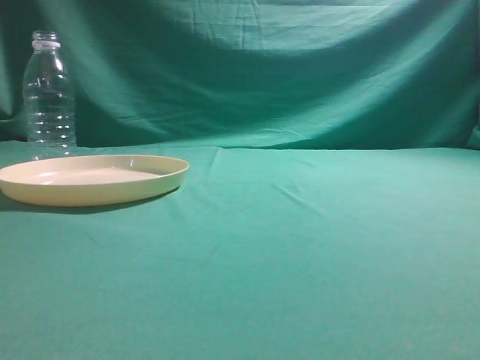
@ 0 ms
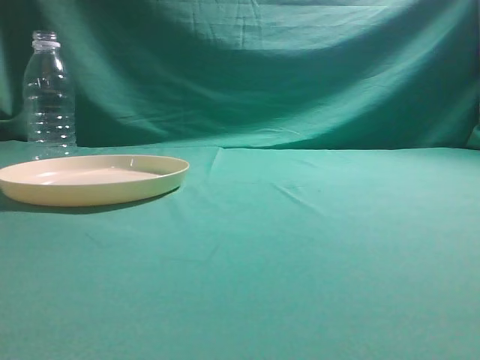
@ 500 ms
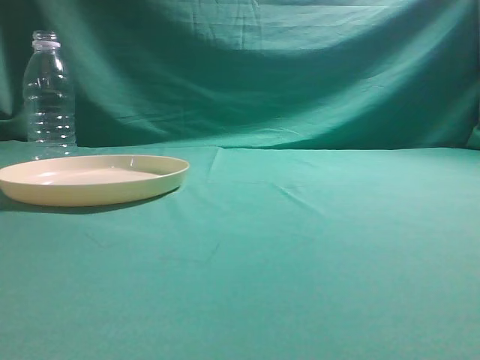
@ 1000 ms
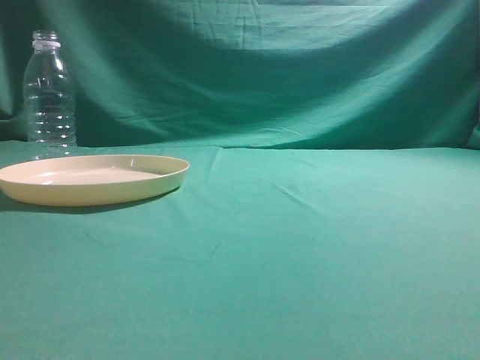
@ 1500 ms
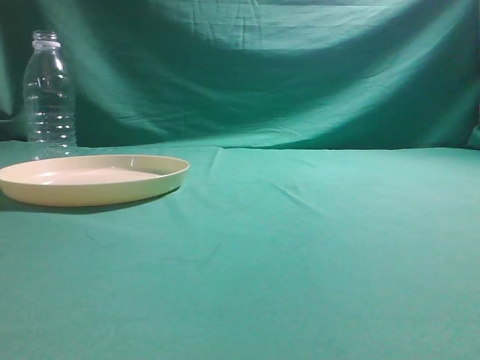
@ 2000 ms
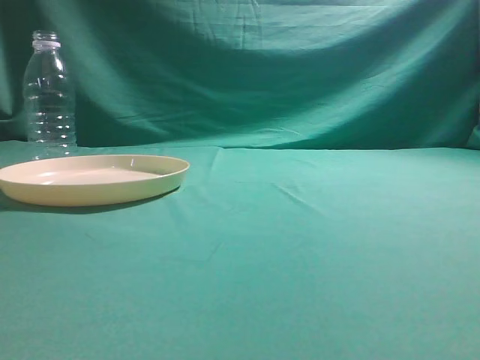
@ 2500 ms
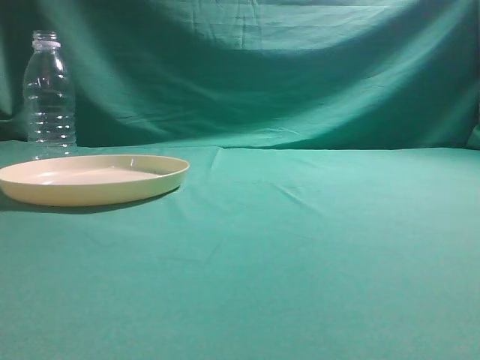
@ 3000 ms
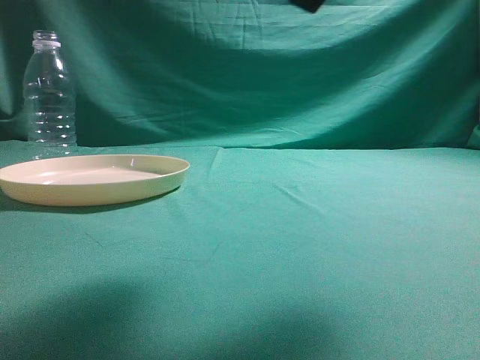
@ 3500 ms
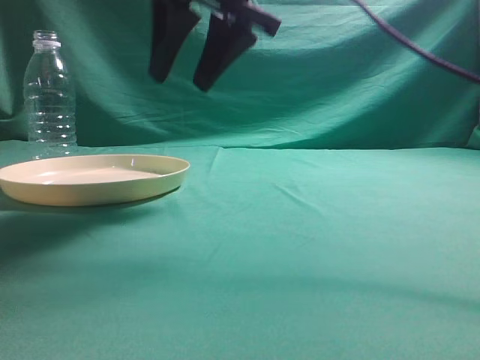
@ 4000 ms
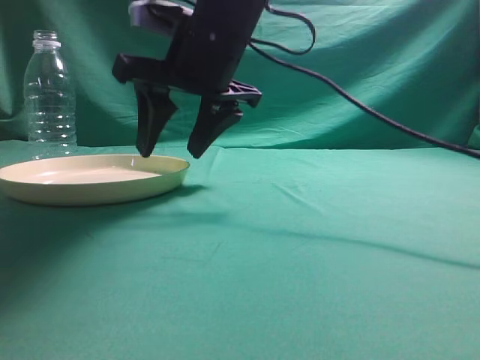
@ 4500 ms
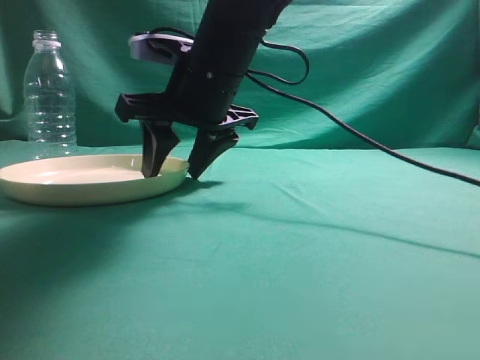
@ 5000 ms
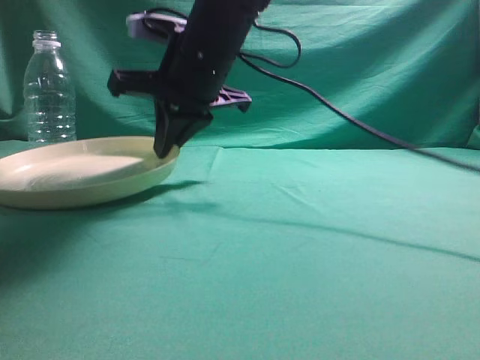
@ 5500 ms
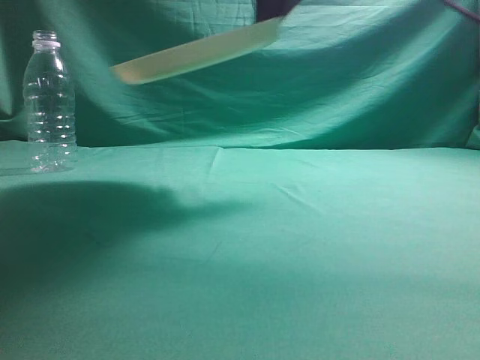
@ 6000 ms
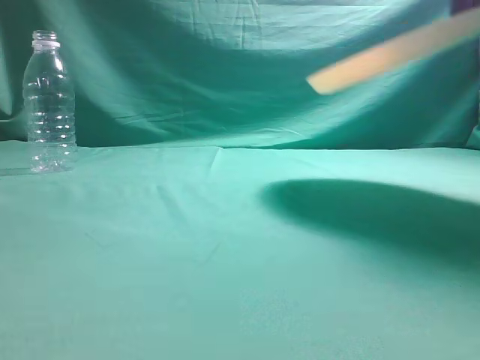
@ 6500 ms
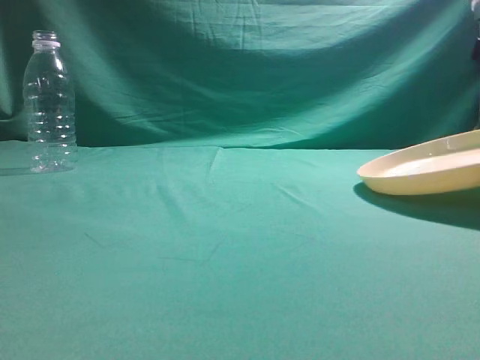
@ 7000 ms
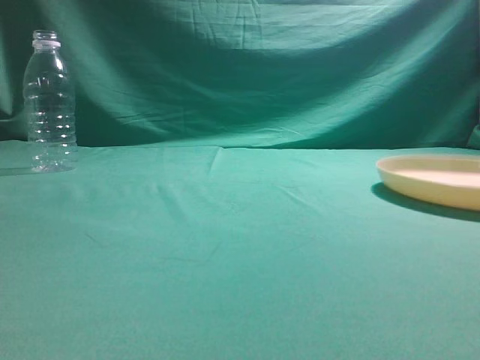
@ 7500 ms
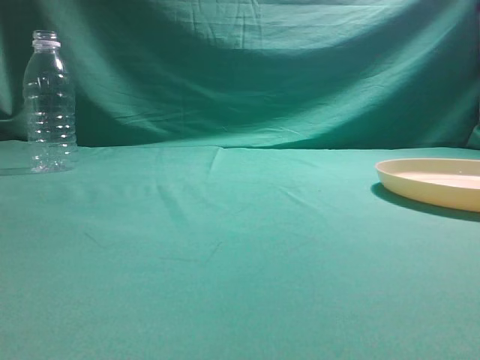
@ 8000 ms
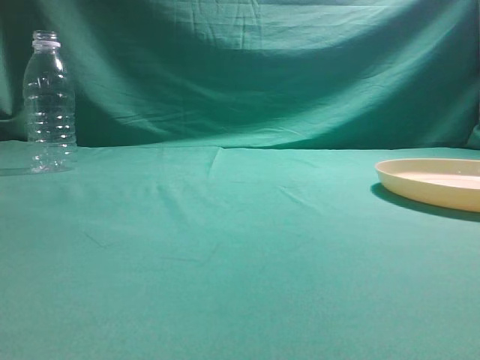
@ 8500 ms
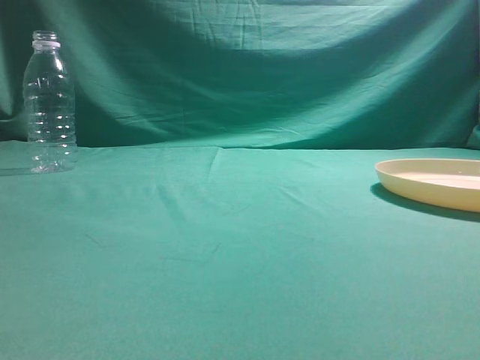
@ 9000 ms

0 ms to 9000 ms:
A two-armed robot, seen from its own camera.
Step, 0 ms to 5500 ms: Pick the container that can hold fruits.
Step, 6000 ms to 8500 ms: Move the picked object to the right side of the table.
2000 ms to 4500 ms: The right gripper goes some 40 cm forward and to the left, and opens.
4500 ms to 7000 ms: The right gripper is displaced to the right by approximately 30 cm, and closes its fingers.
7000 ms to 9000 ms: The right gripper moves backward and upward, approximately 35 cm, and opens and closes again.
